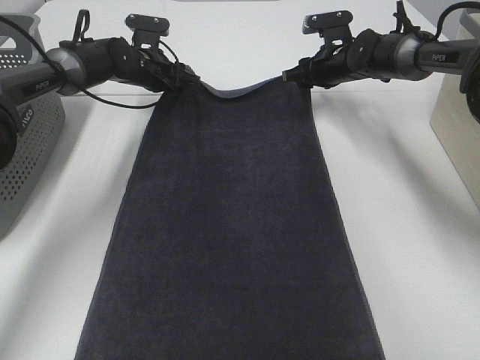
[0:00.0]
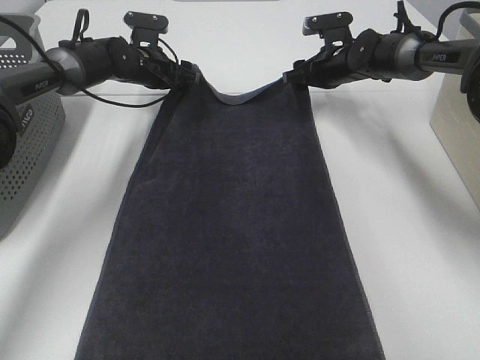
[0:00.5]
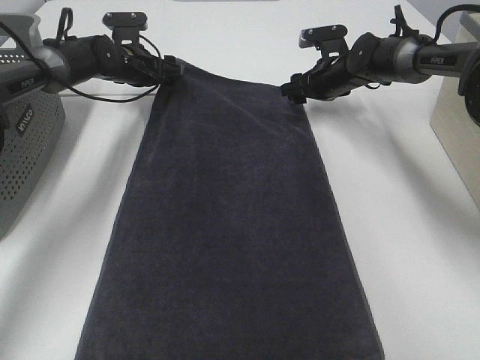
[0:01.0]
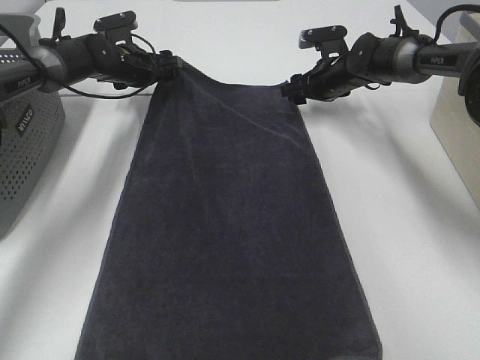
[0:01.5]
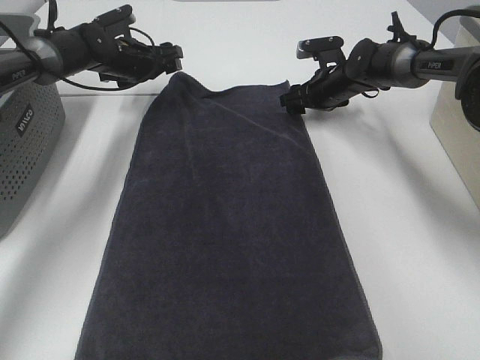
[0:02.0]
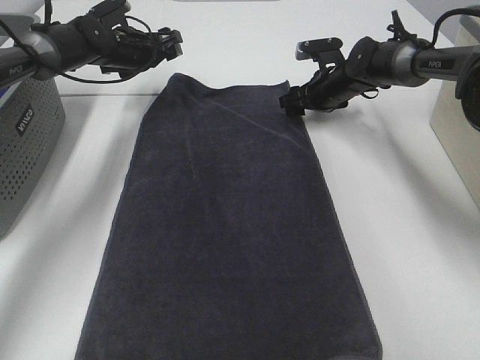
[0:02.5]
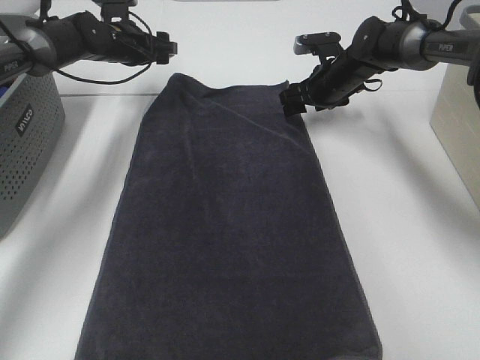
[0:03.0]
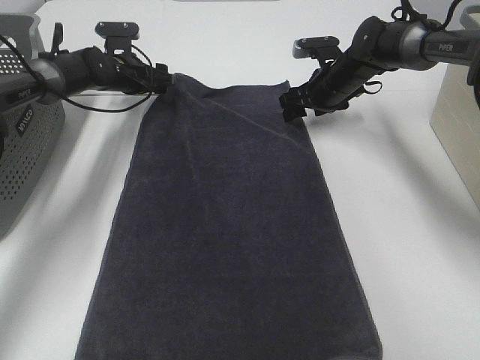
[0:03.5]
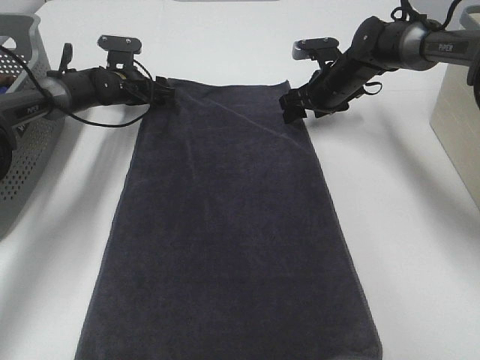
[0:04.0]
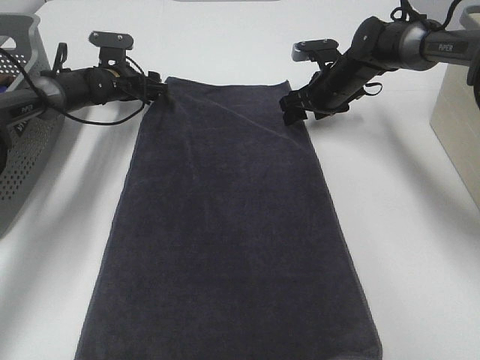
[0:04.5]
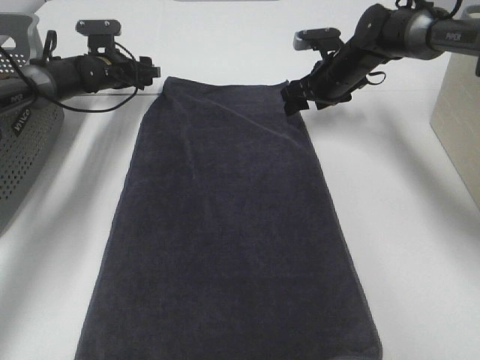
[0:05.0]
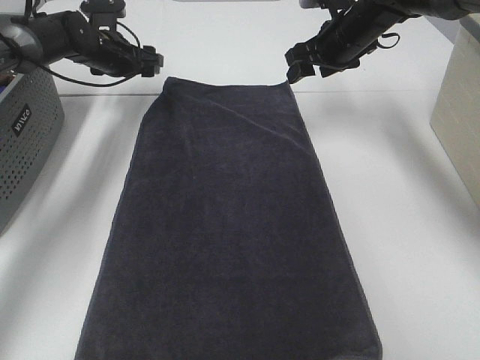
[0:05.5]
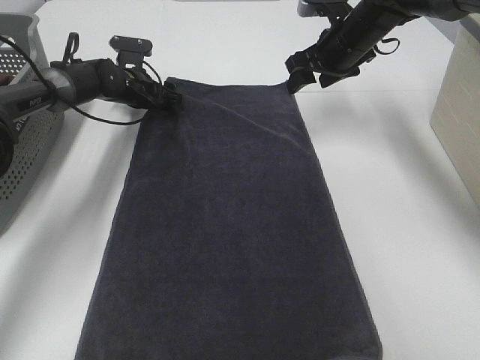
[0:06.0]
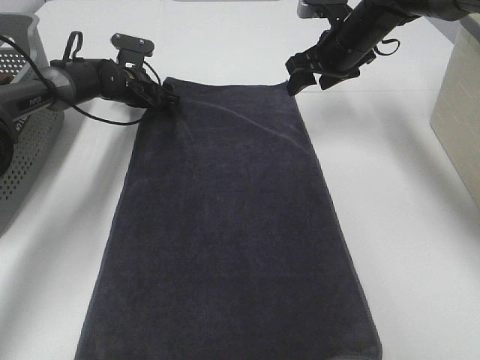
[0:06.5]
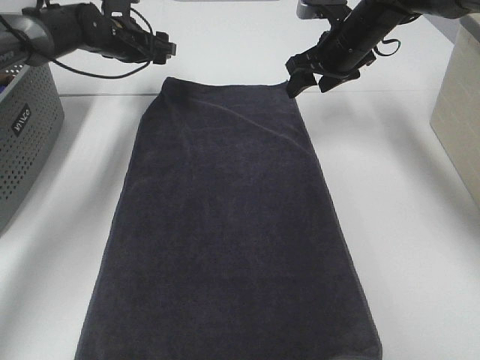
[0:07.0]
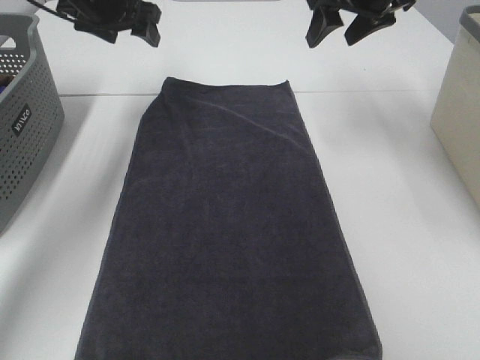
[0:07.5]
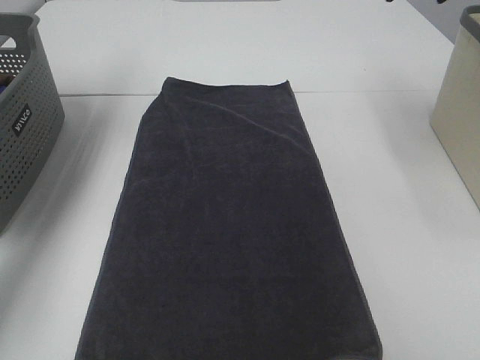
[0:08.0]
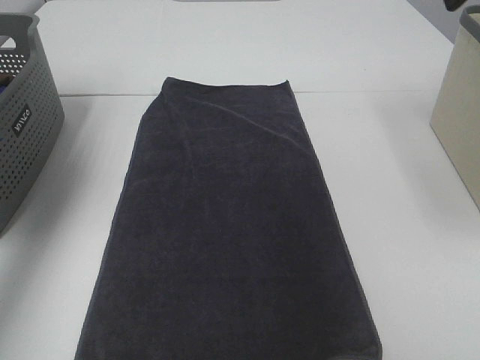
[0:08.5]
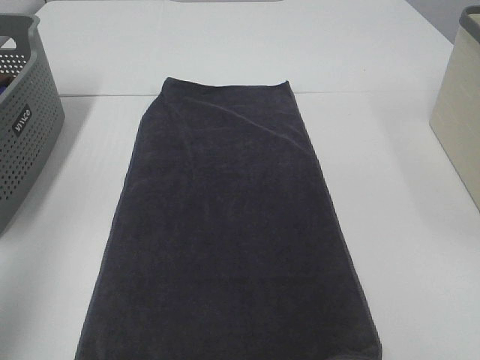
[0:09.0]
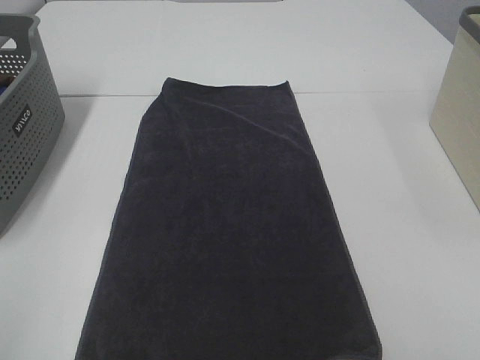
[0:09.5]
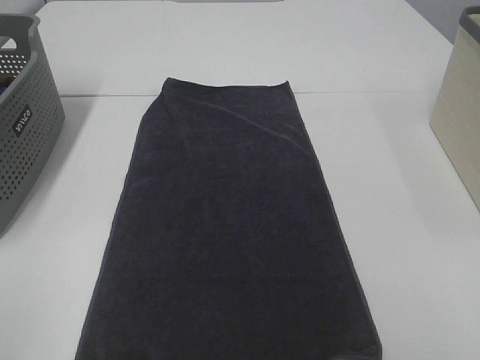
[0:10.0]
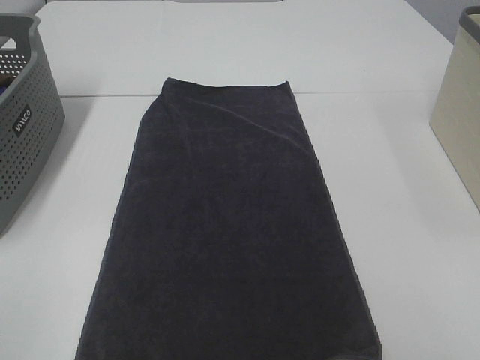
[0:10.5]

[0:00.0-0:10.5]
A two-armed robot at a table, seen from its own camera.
Task of the whole recording: Remove the towel and place it.
0:02.0 to 0:04.0: The left gripper shifts approximately 5 cm downward.
0:04.0 to 0:06.5: The right gripper moves upward, approximately 10 cm.
0:06.5 to 0:08.5: The grippers both shift upward and backward by roughly 35 cm.
0:08.5 to 0:10.5: The left gripper shifts about 35 cm backward.

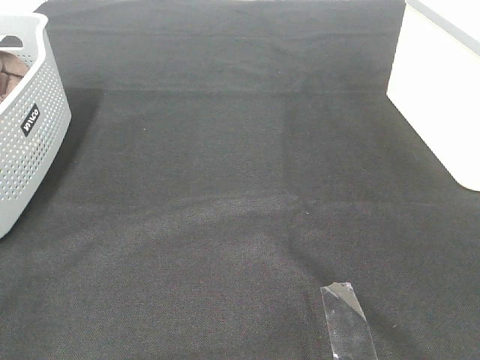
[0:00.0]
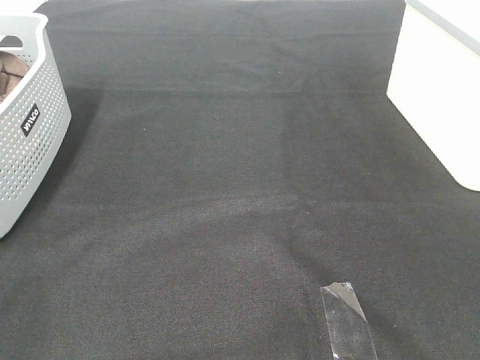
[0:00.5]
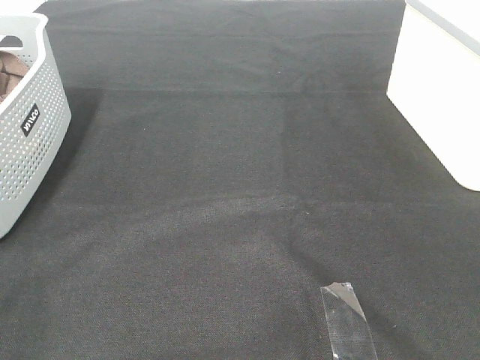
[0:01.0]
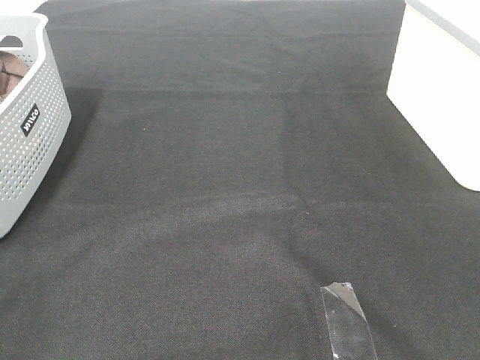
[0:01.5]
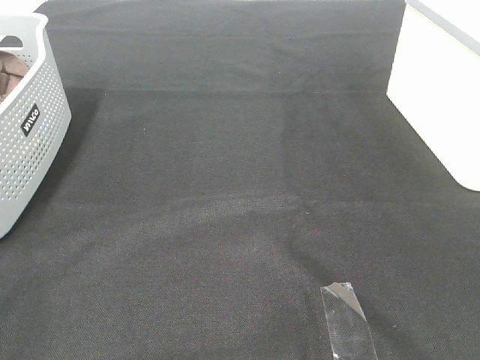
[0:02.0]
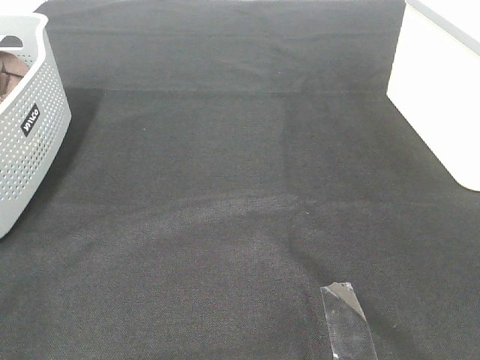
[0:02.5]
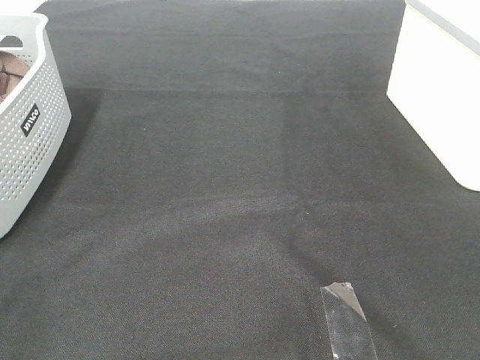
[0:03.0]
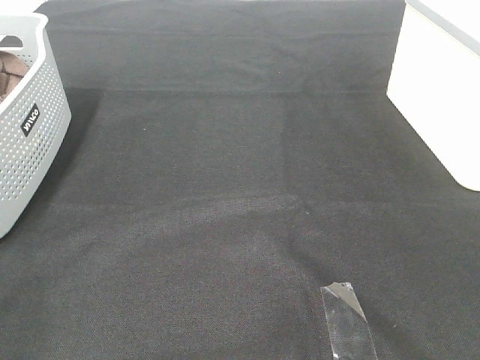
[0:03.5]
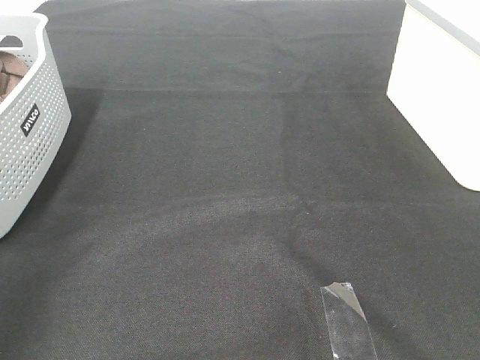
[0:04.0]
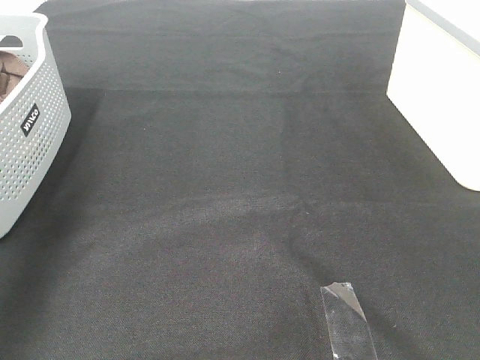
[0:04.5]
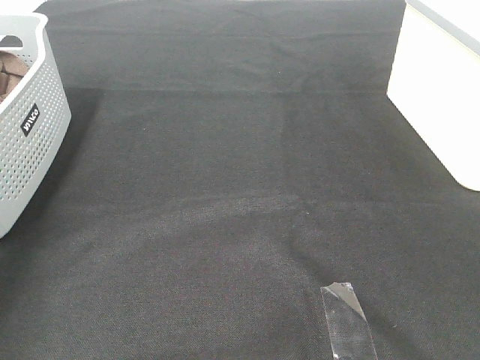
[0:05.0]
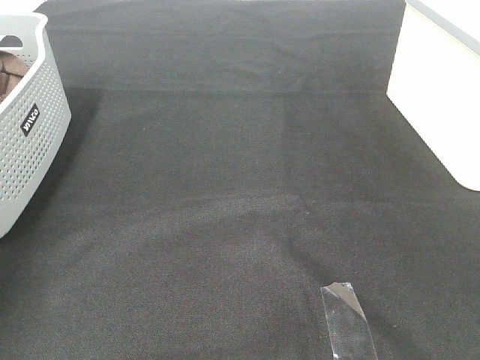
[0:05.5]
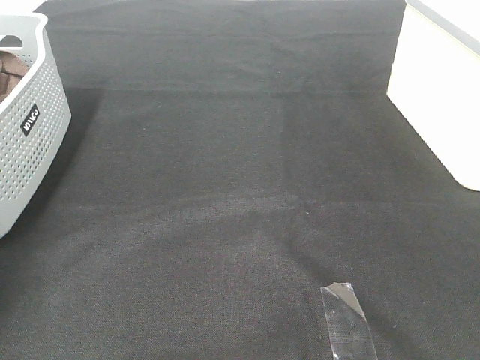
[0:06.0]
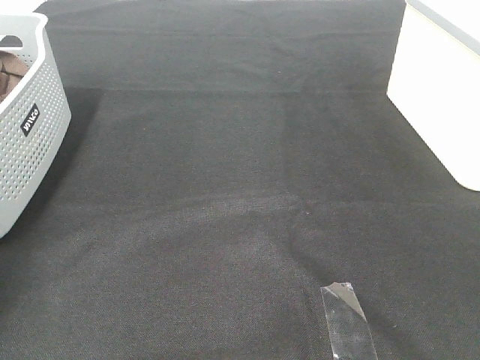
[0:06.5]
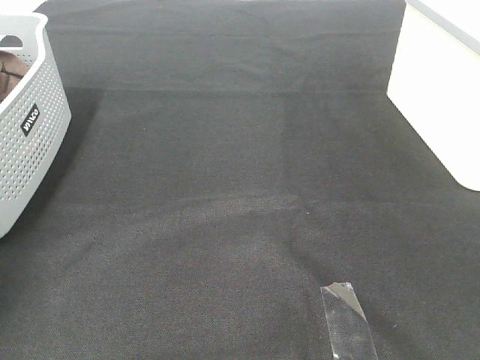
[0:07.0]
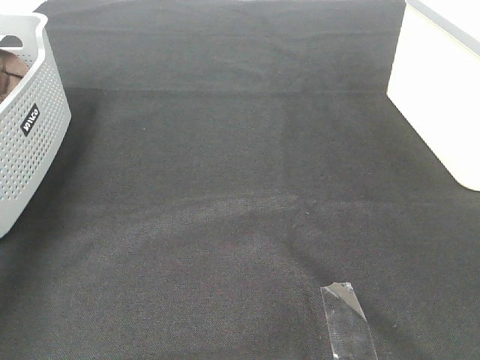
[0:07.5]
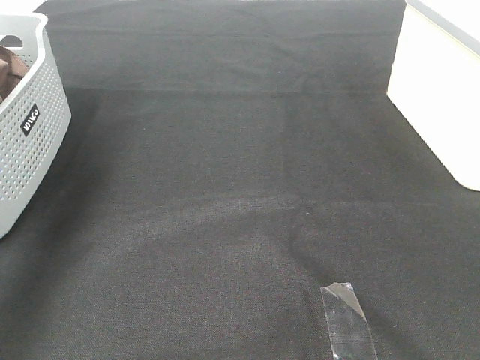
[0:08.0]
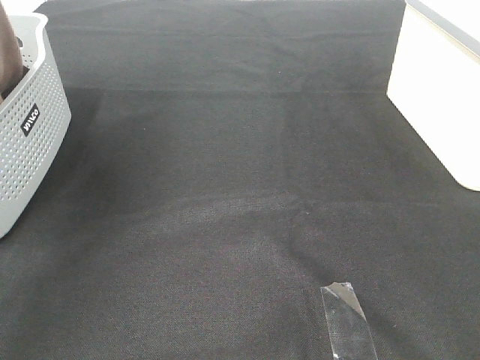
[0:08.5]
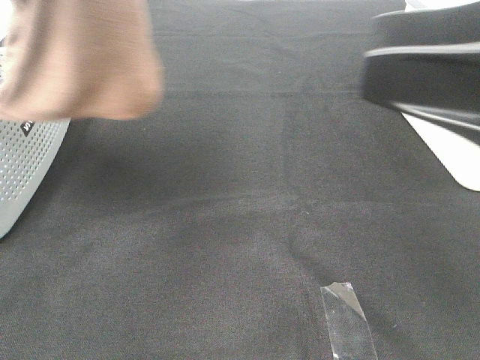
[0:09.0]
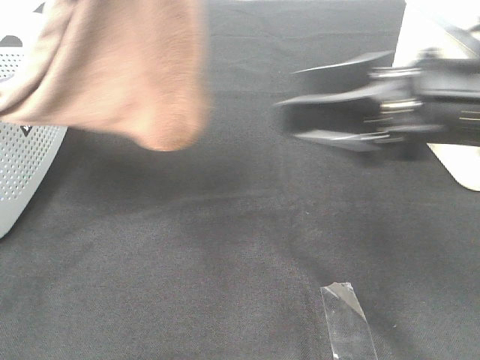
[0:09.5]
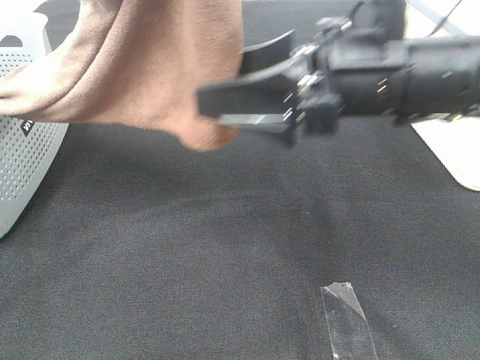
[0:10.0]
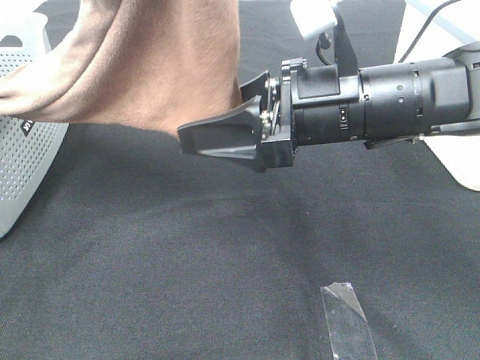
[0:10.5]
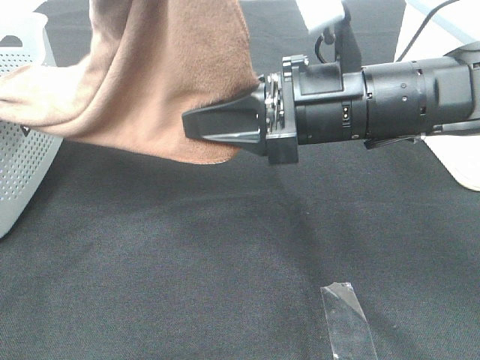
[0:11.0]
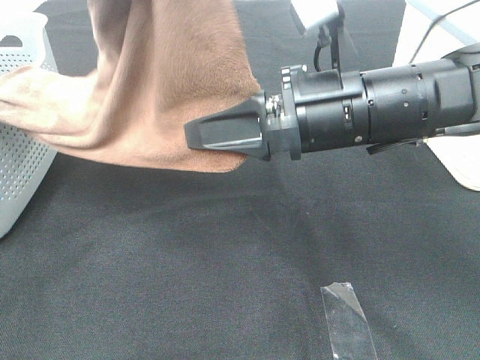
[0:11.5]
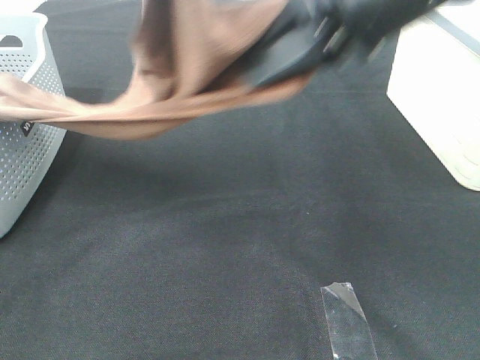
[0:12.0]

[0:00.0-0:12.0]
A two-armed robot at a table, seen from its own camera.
Task of the whole recording: Remove the towel and place it.
Step, 0:08.5 to 0:10.0: Right hand: grab a corner of the brown towel and straighten it.
0:00.0 to 0:02.0: The two grippers keep their place.
0:06.0 to 0:08.0: The left gripper travels upward, to the right and backward by about 25 cm, and closes up.
0:08.0 to 0:10.0: The left gripper travels to the right and backward by about 25 cm. The right gripper is displaced forward and to the left by about 30 cm.
0:10.0 to 0:12.0: The right gripper is displaced upward by about 10 cm, and closes.

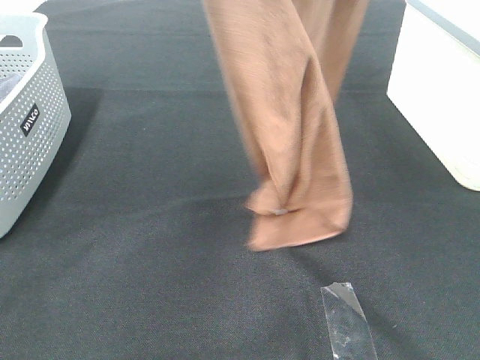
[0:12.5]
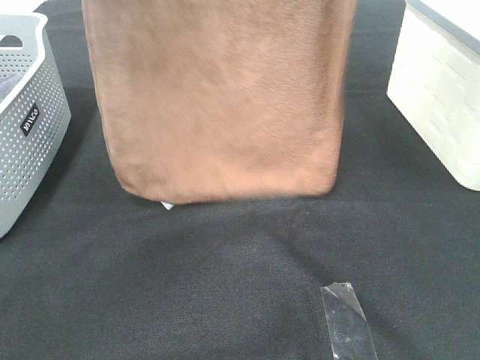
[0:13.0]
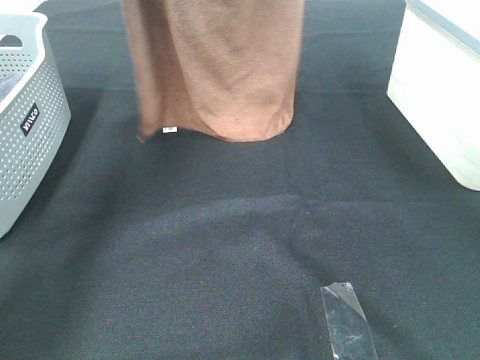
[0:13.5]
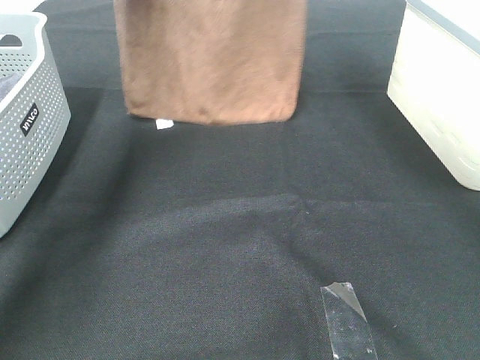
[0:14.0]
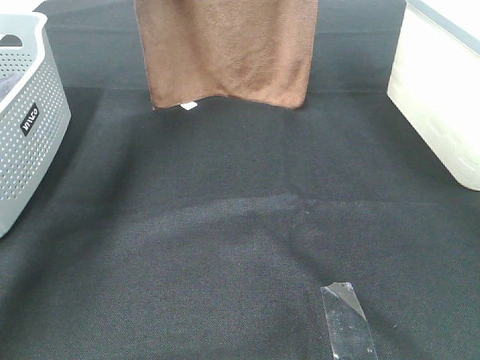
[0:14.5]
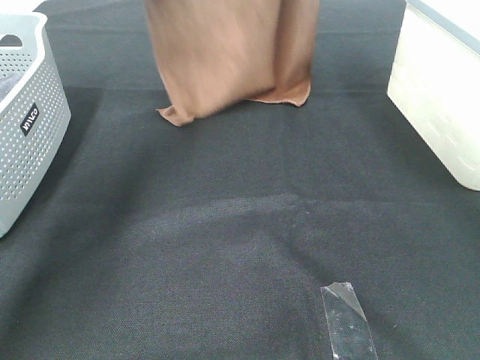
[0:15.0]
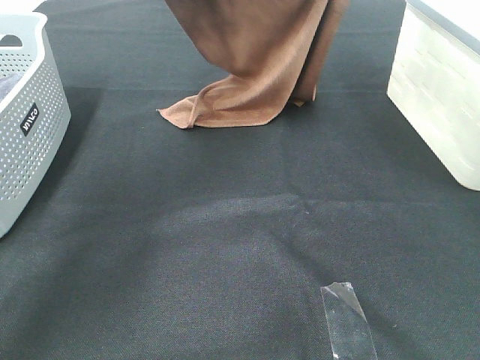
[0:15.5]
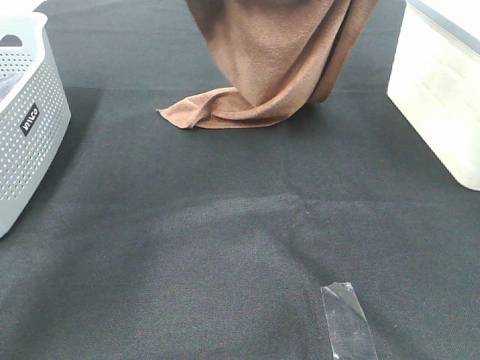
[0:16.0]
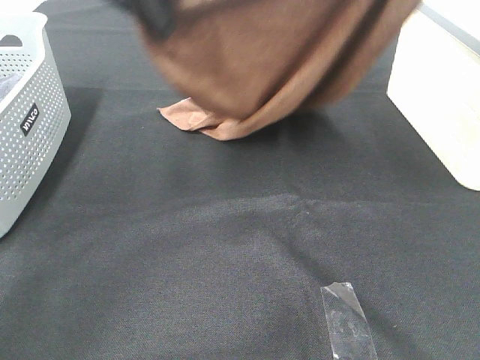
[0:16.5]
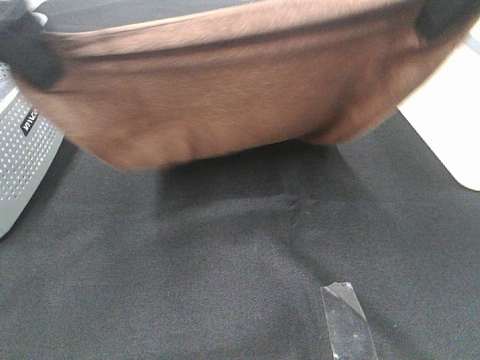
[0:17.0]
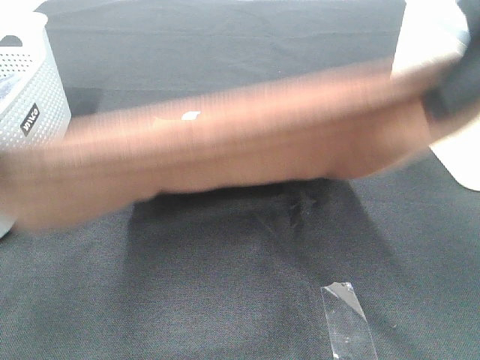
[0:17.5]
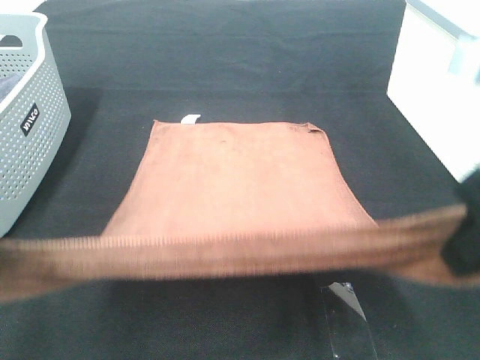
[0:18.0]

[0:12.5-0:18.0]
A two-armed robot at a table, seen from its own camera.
Task of the whole recording: Remove the towel and place it.
Step, 0:12.5 to 0:17.0: Left hand: spread the brown towel flat on the table.
Step, 0:12.5 to 0:17.0: Right hand: spread the brown towel flat on the table.
0:12.5 to 0:14.5: Both grippers travel together forward, approximately 25 cm.
0:14.5 to 0:16.0: The right gripper heads backward, covering about 5 cm. Meanwhile the left gripper moves to the right, downward and backward, some 15 cm.
0:16.0 to 0:18.0: The left gripper shifts about 35 cm backward and to the left, while the right gripper moves backward and downward, approximately 30 cm.
